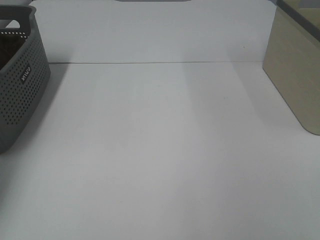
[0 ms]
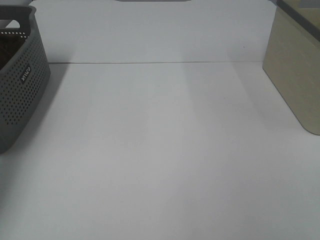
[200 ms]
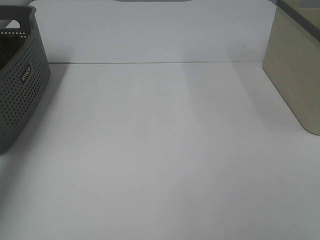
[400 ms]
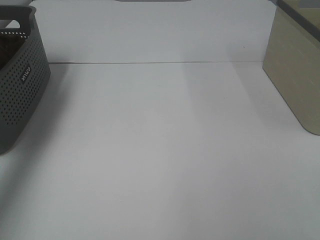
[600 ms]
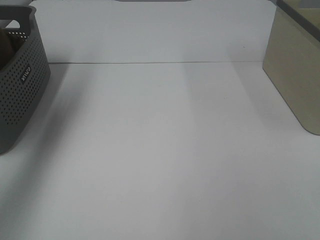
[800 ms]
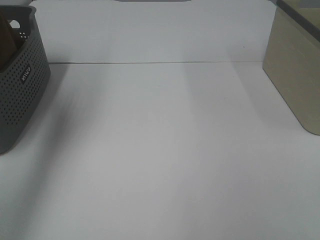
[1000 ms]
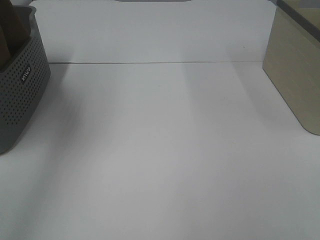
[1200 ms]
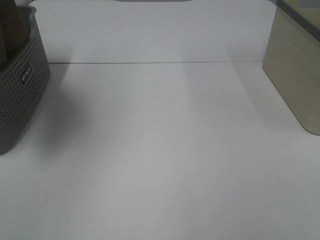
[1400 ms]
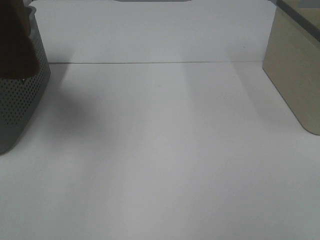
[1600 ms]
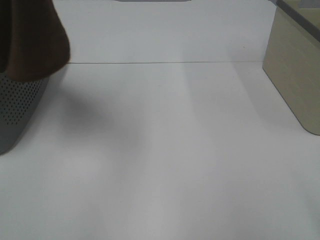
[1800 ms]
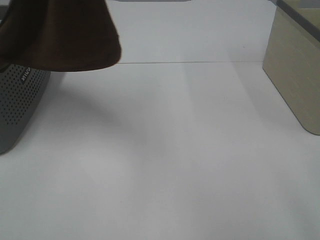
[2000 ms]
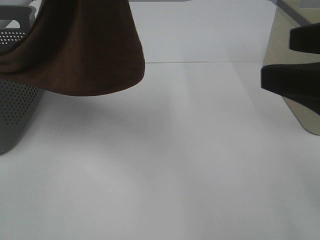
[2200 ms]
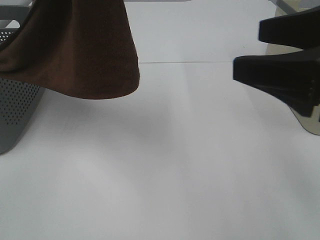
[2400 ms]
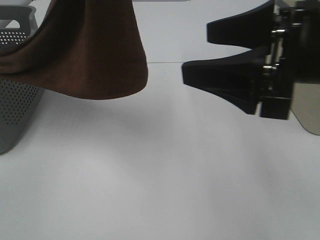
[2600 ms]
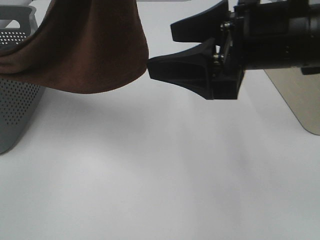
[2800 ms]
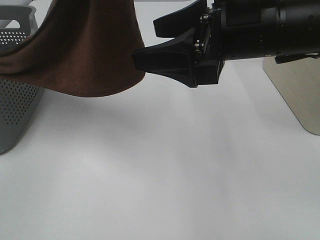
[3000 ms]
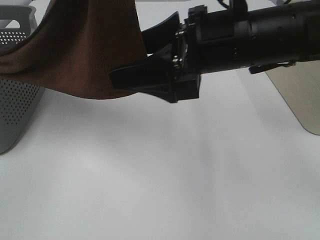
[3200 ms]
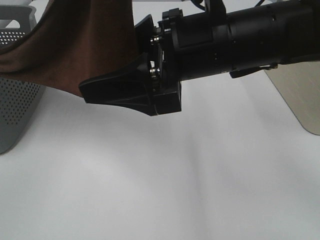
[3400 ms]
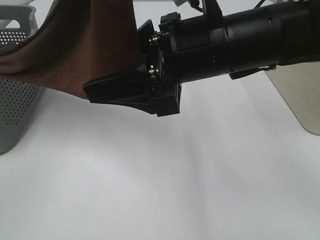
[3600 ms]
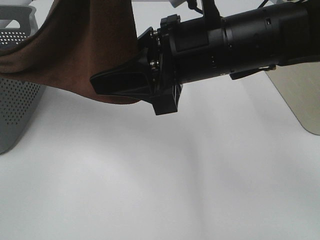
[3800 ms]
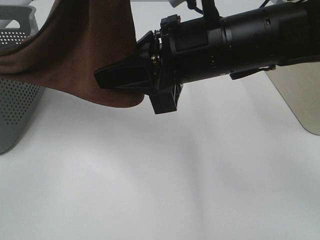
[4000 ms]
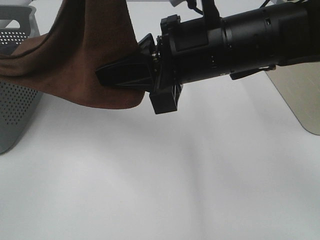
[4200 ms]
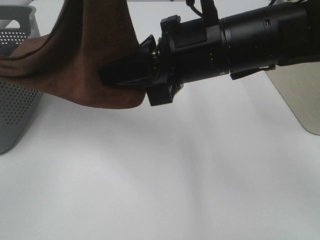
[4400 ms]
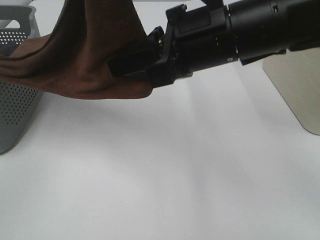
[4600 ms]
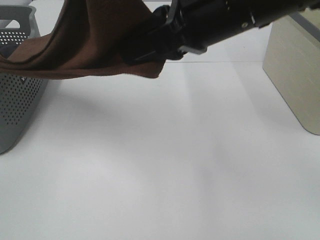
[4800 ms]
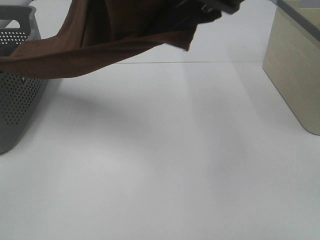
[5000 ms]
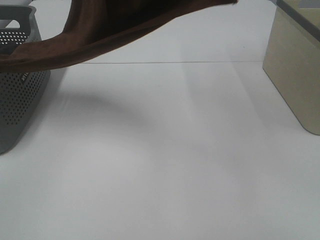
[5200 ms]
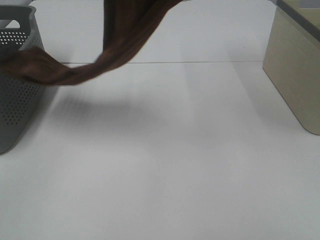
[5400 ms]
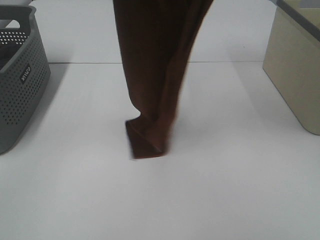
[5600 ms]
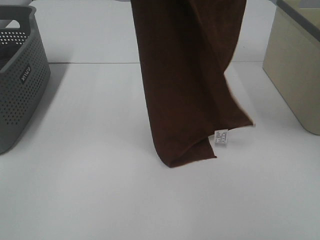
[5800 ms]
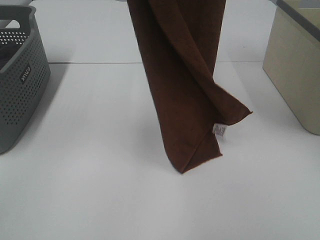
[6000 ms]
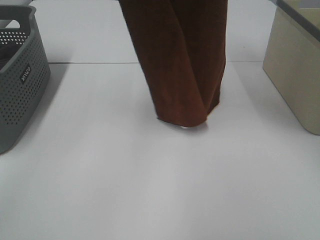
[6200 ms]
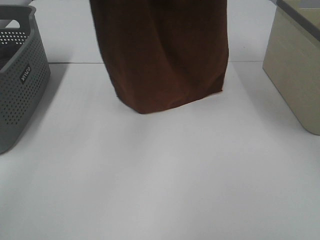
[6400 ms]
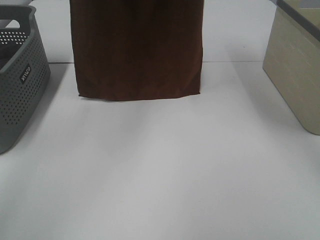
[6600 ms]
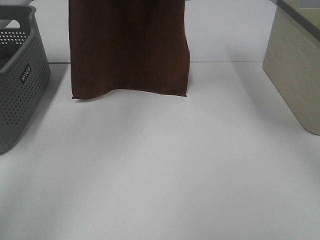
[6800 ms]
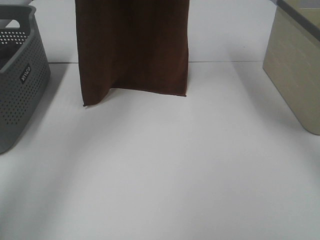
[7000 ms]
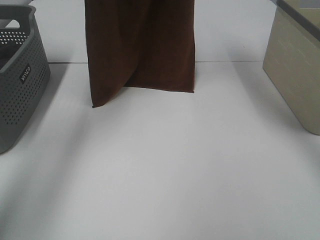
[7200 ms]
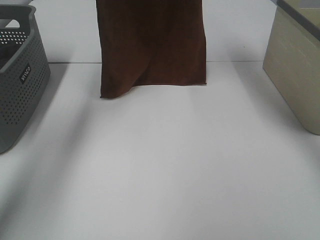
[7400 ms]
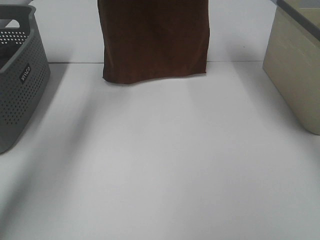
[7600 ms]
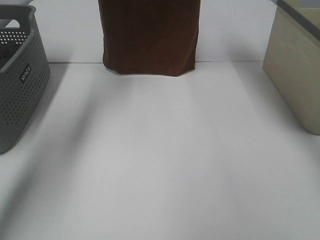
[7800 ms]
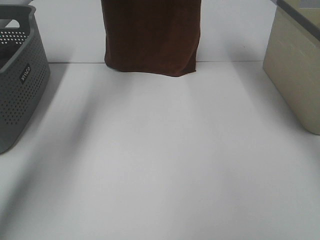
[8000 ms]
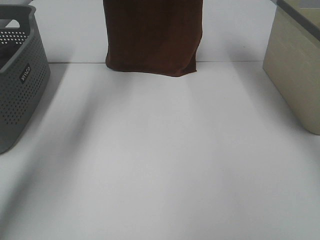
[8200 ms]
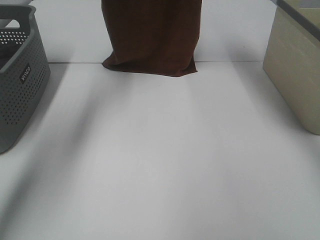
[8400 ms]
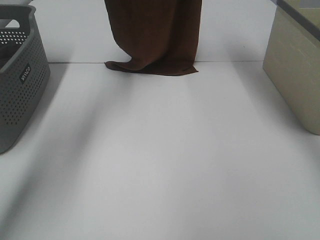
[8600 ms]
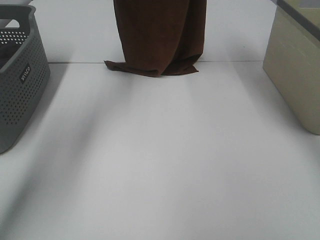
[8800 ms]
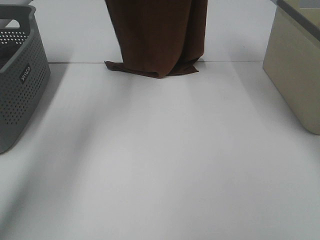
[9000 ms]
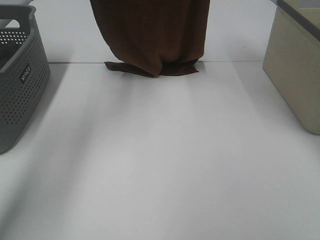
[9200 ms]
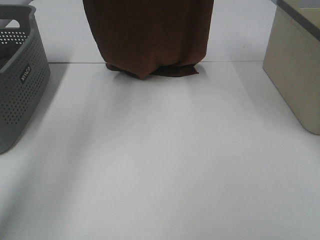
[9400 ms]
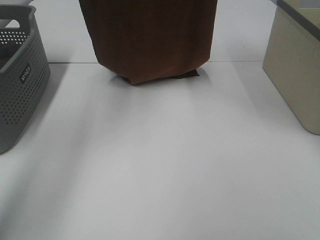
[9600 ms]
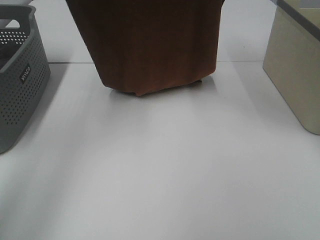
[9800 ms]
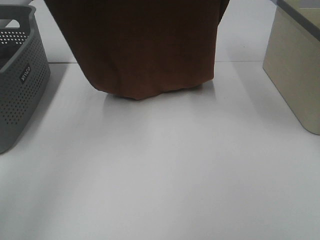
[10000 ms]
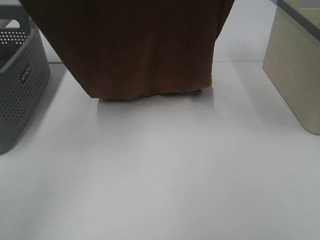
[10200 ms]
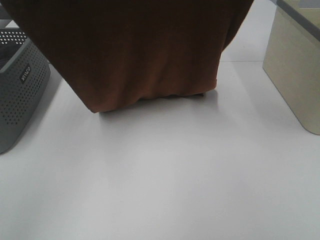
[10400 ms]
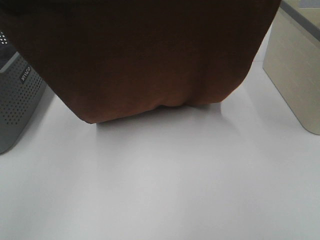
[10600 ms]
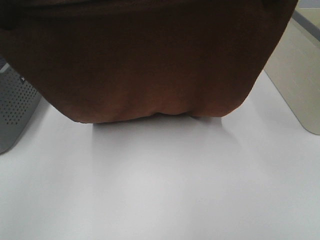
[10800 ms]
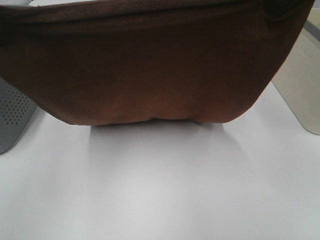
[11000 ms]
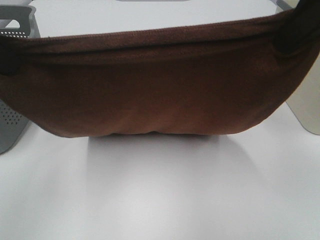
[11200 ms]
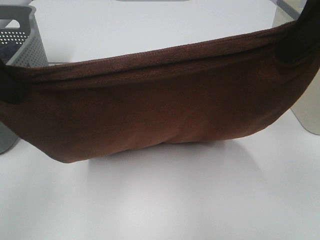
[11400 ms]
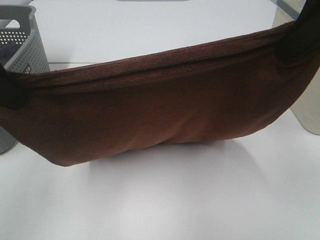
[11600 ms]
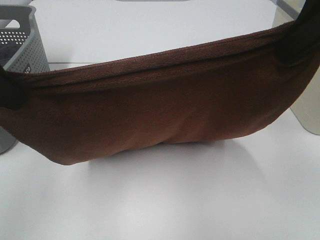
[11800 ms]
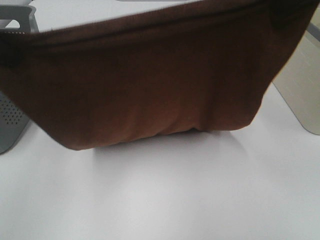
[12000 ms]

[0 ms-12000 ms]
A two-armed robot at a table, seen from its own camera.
Task of the whole recording: Remove the towel and place it.
Step, 800 ms to 5400 ms: Right hand: grab a corner of the brown towel and straighten it.
0 ms to 1600 ms: The left gripper goes about 40 cm upward, to the right and backward.
1600 ms to 3000 ms: The left gripper heads to the right, covering about 10 cm. Meanwhile the right gripper moves forward and to the left, some 30 cm.
3000 ms to 4400 ms: The right gripper shifts by approximately 5 cm, and closes.
4400 ms to 6000 ms: The left gripper moves forward, roughly 5 cm. The right gripper moves upward, about 25 cm.
6000 ms to 7600 ms: The two grippers go approximately 20 cm forward.
7600 ms to 9000 ms: The left gripper travels downward by roughly 5 cm.
9000 ms to 10400 ms: Both grippers move backward, about 20 cm.
10400 ms to 12000 ms: Both grippers move backward, approximately 5 cm.

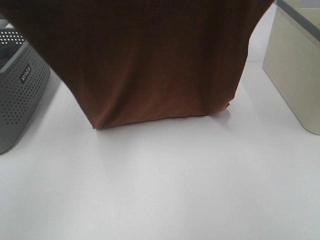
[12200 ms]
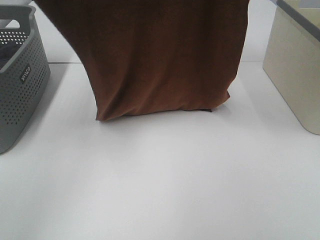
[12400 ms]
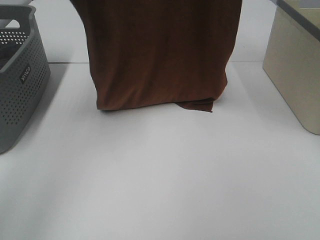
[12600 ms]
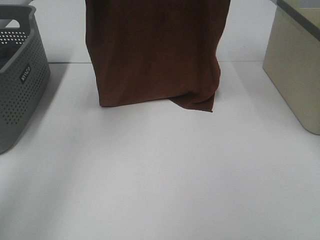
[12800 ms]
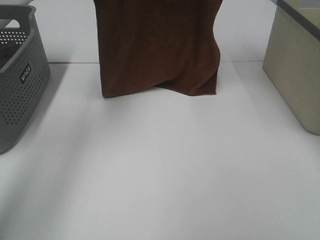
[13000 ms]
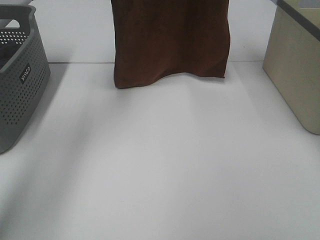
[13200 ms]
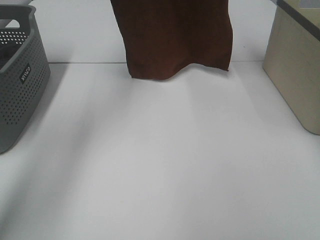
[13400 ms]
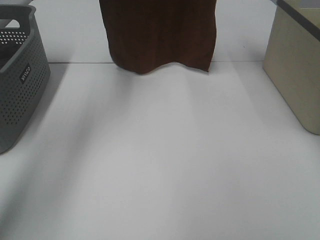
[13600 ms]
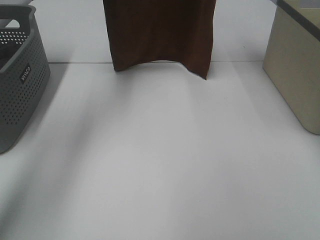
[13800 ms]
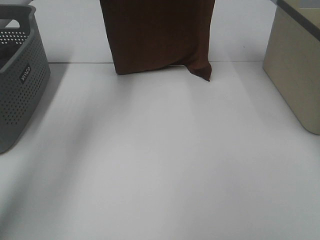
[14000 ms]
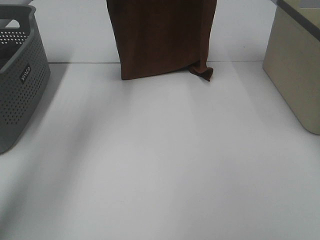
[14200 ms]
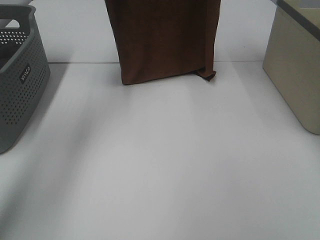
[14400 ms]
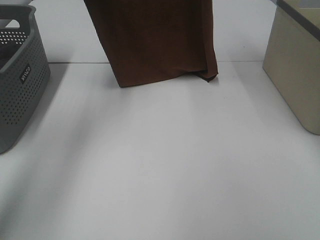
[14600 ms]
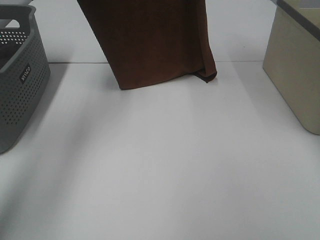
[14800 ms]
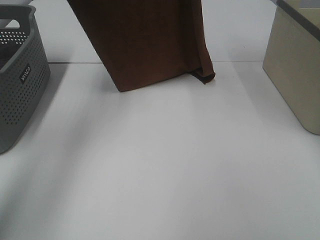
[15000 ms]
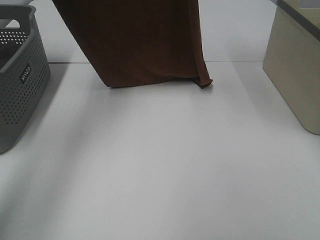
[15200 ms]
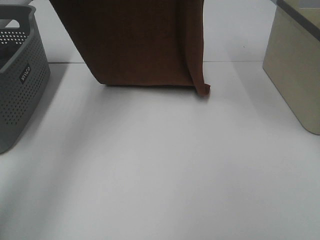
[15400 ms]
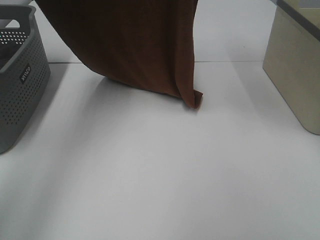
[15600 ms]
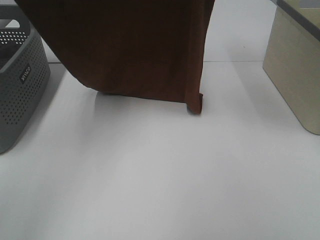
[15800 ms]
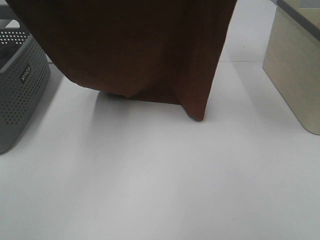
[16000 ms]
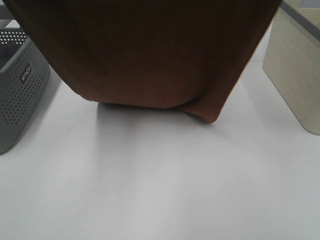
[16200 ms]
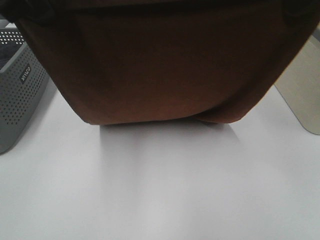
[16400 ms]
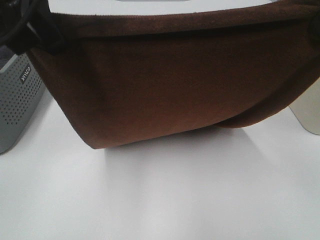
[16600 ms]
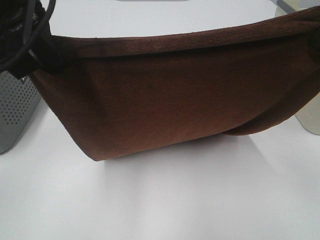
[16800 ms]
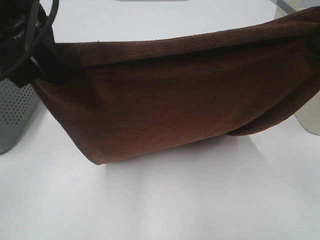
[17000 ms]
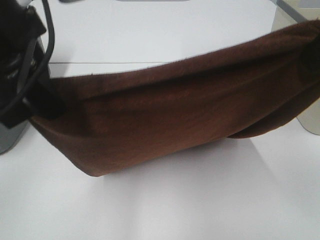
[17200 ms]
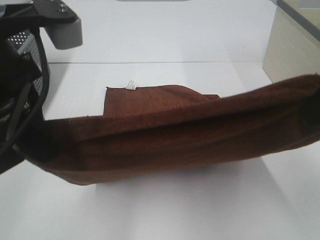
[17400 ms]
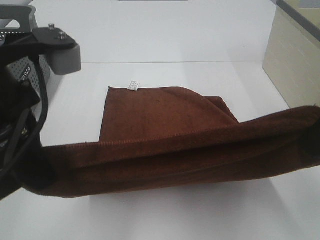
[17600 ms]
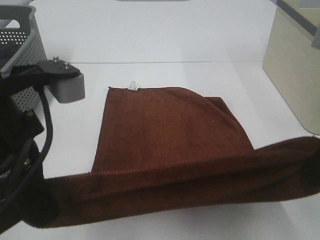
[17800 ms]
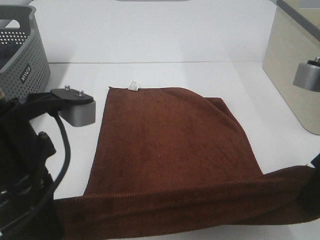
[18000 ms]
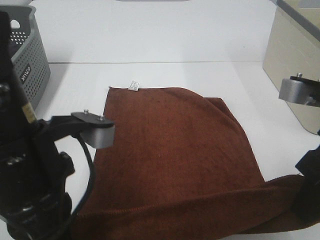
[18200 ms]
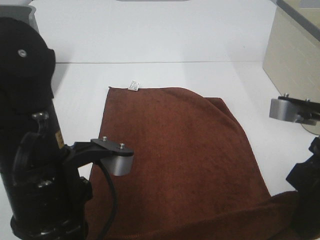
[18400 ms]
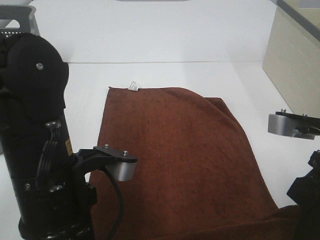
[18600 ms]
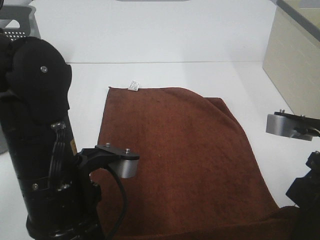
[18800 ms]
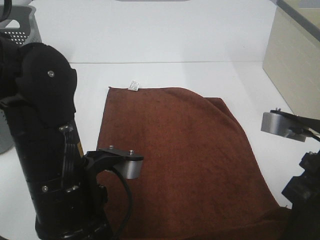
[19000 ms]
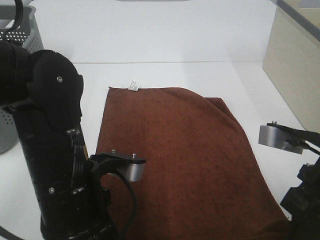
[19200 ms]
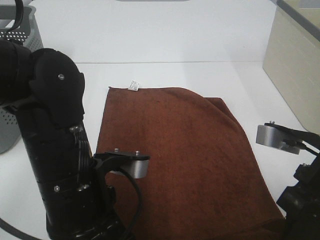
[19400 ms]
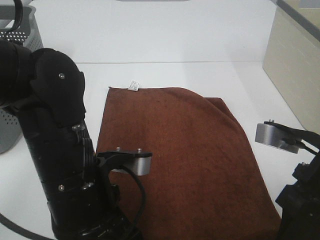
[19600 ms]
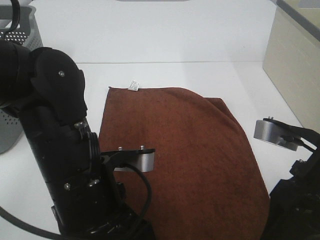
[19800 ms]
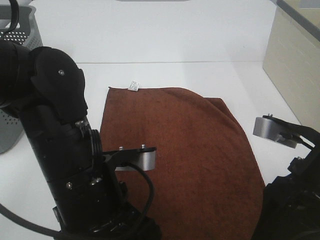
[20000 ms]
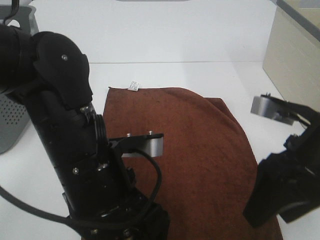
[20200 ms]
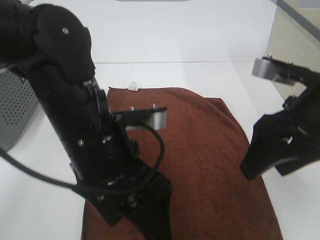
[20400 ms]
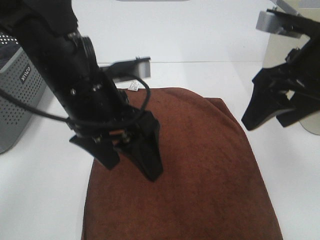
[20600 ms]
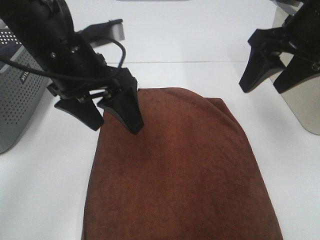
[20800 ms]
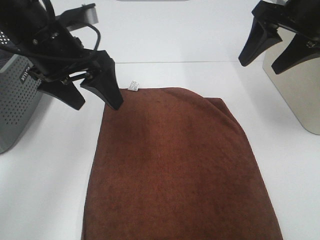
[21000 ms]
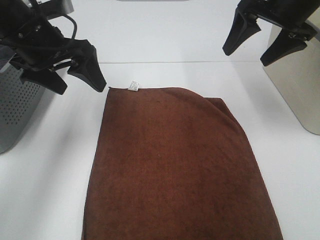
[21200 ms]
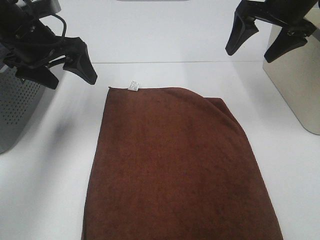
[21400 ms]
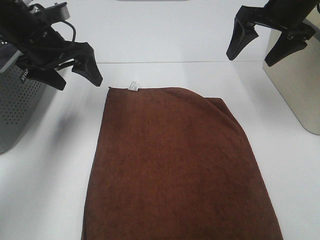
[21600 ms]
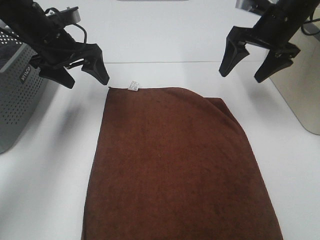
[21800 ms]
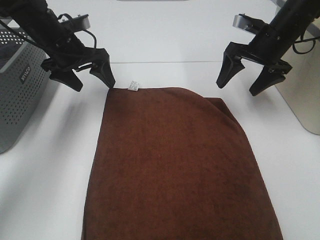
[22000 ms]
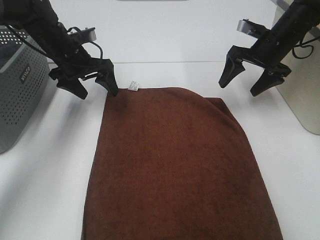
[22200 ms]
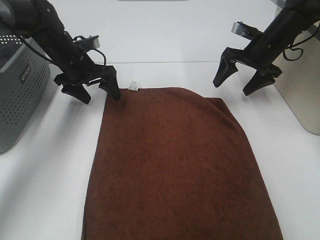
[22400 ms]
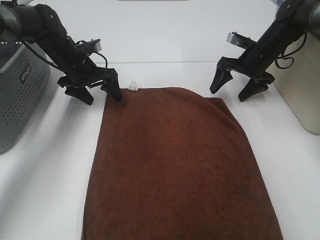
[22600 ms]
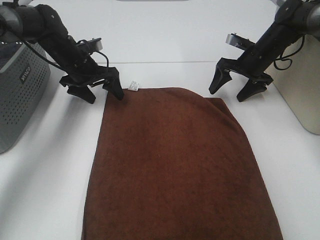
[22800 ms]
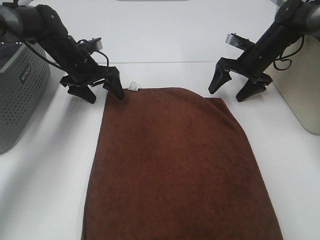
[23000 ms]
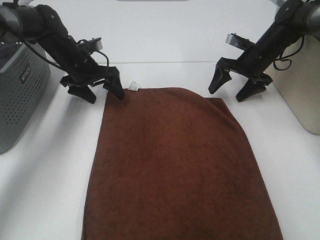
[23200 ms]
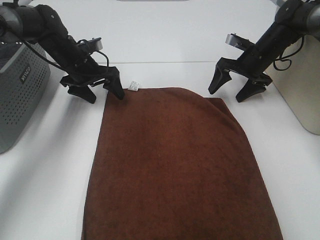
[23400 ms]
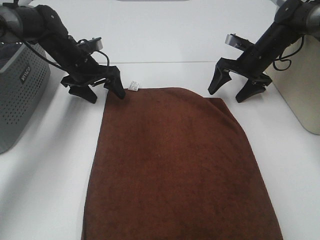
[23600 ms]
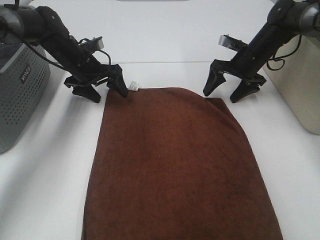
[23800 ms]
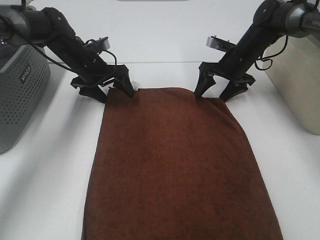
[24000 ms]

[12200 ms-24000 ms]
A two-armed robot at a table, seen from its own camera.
Task of the whole recording: Remove the towel and place it.
Step, 12200 ms to 14800 ms: Left hand: spread the brown towel flat on the table.
Step, 12200 ms to 14800 ms: Right hand: spread the brown towel flat on the table.
Step, 15000 ms to 22400 ms: Left hand:adjust the brown towel.
Step, 15000 ms to 22400 ms: Right hand:adjust the brown towel.
12200 ms to 13600 ms: Both grippers move forward, approximately 20 cm.
13600 ms to 15200 ms: The left gripper goes about 5 cm backward, while the right gripper ends up approximately 5 cm from where it was.
15200 ms to 16600 ms: The right gripper heads backward and to the right, covering roughly 20 cm. Meanwhile the left gripper shifts some 20 cm backward and downward.
16600 ms to 18200 ms: Both grippers travel together downward, about 15 cm.
18200 ms to 19600 ms: Both grippers travel together downward, approximately 5 cm.
19600 ms to 21000 ms: The left gripper heads forward, upward and to the left, covering about 20 cm, and opens its fingers; the right gripper heads forward and upward, covering about 20 cm, and opens up.
21000 ms to 22600 ms: The right gripper shifts some 25 cm downward and forward. Meanwhile the left gripper moves forward and downward, some 20 cm.
22600 ms to 24000 ms: The grippers move only a little.
